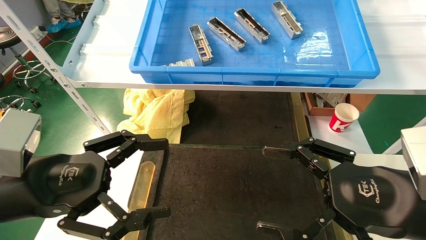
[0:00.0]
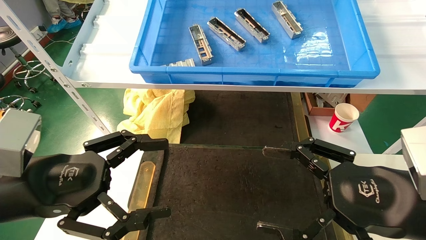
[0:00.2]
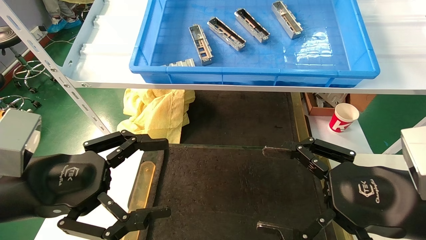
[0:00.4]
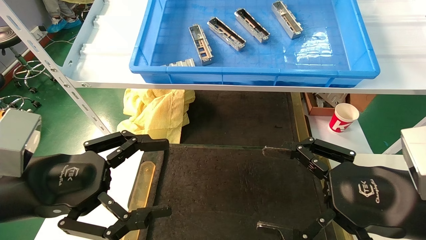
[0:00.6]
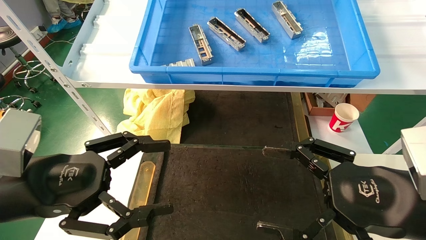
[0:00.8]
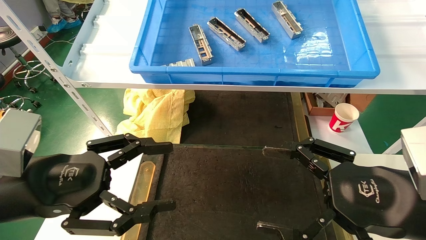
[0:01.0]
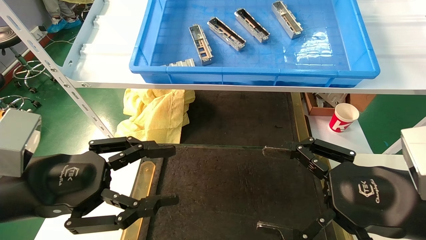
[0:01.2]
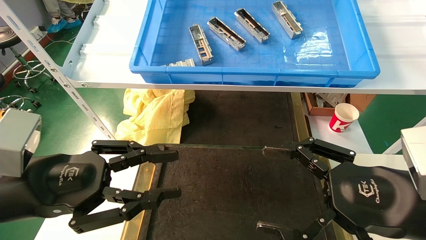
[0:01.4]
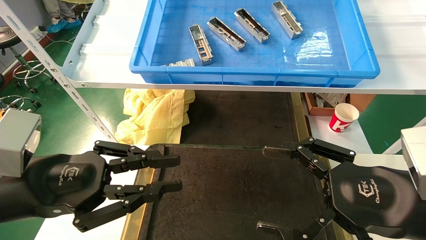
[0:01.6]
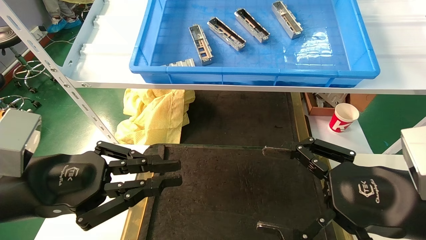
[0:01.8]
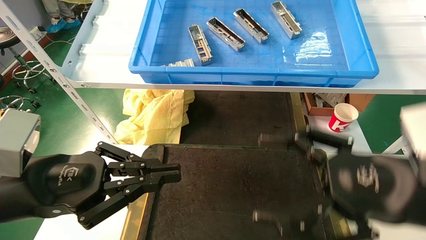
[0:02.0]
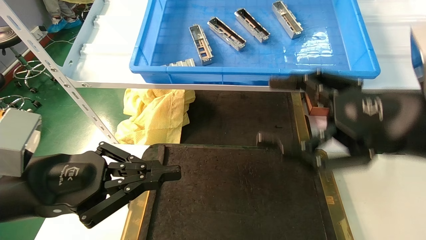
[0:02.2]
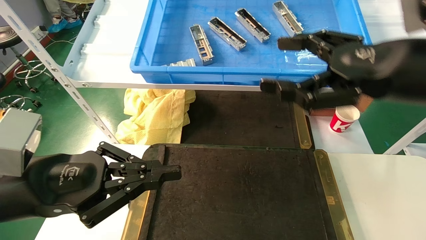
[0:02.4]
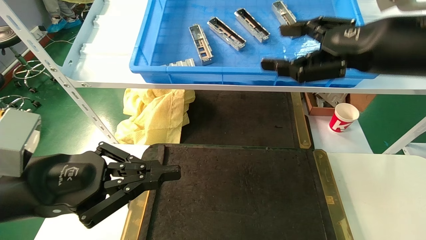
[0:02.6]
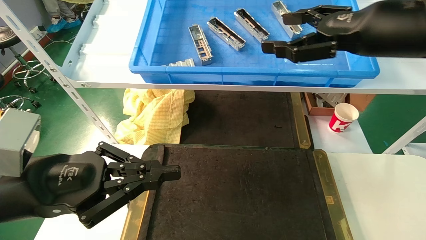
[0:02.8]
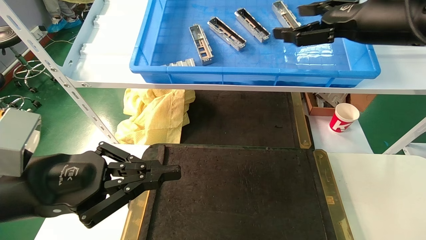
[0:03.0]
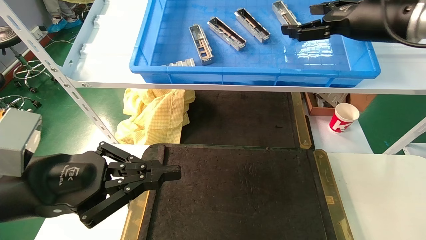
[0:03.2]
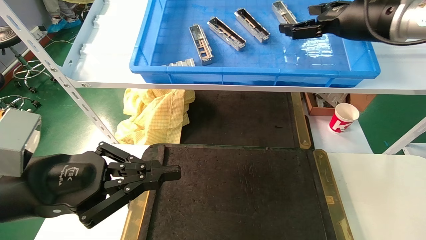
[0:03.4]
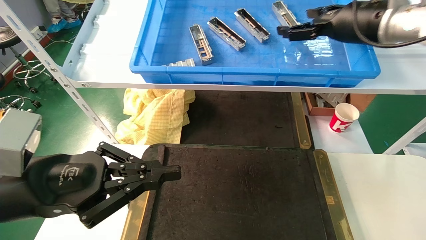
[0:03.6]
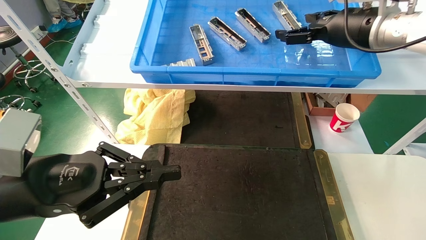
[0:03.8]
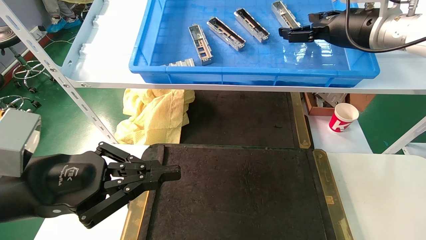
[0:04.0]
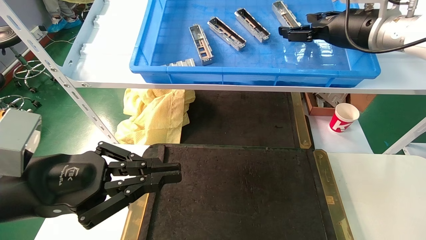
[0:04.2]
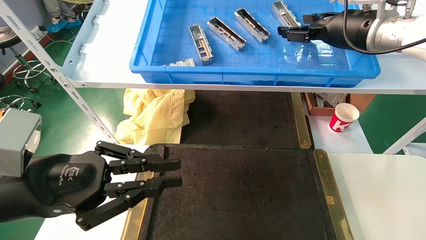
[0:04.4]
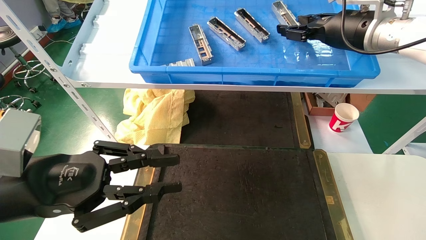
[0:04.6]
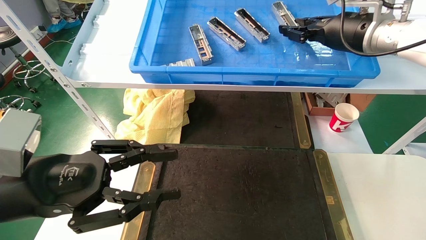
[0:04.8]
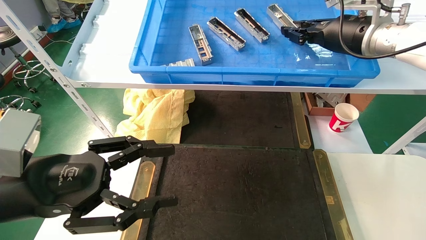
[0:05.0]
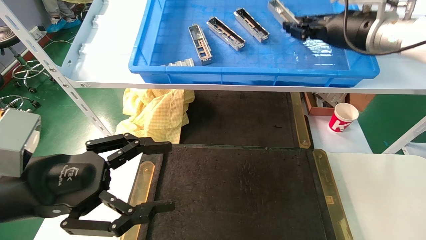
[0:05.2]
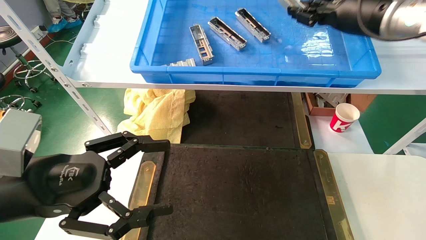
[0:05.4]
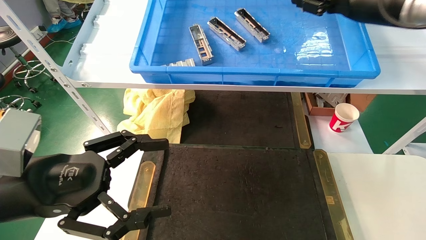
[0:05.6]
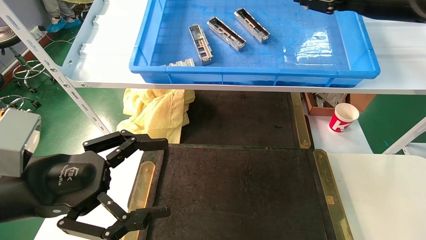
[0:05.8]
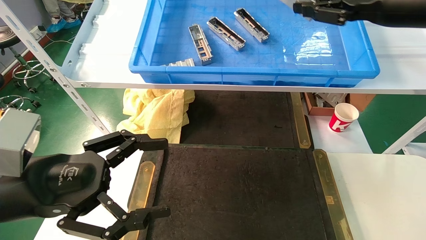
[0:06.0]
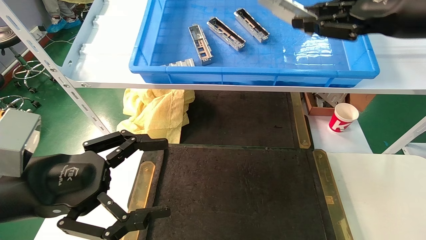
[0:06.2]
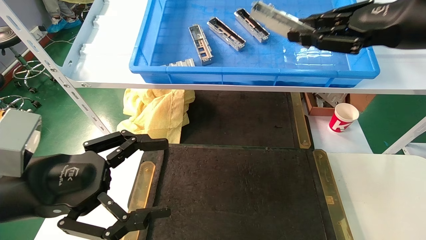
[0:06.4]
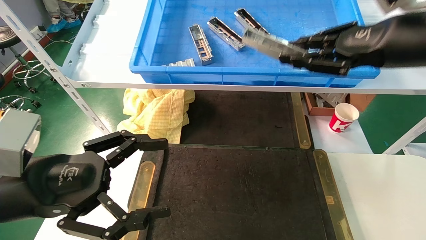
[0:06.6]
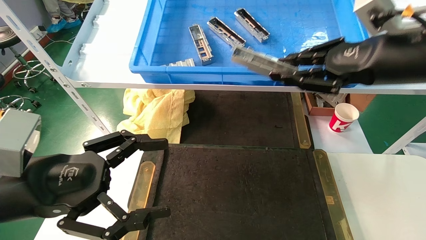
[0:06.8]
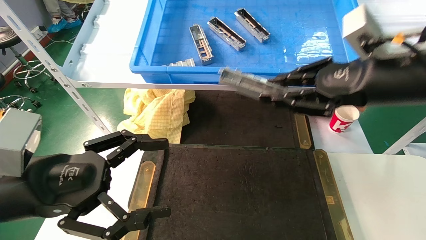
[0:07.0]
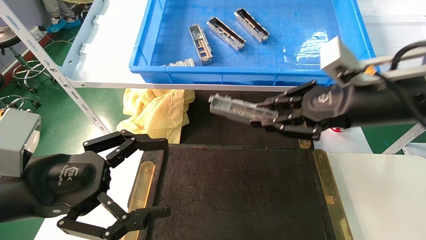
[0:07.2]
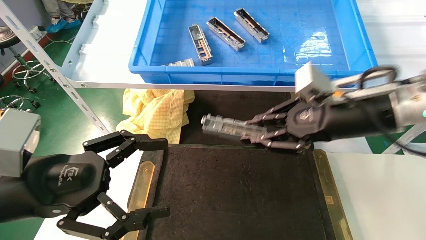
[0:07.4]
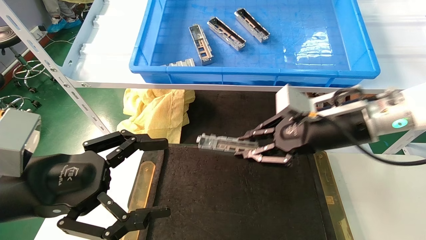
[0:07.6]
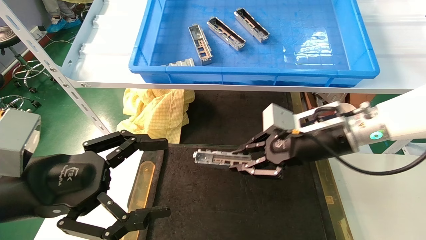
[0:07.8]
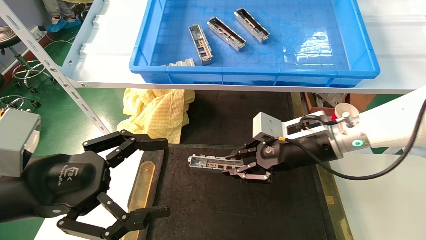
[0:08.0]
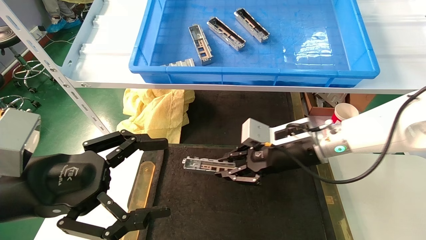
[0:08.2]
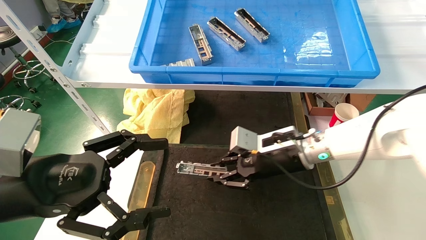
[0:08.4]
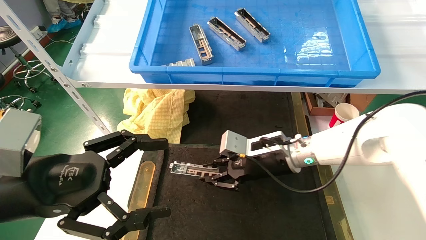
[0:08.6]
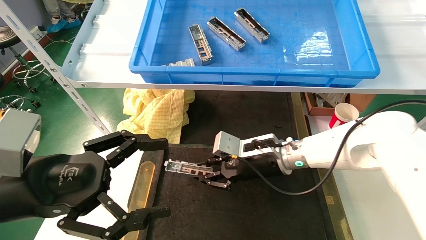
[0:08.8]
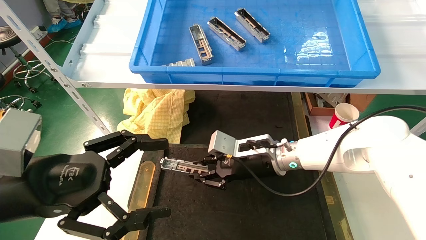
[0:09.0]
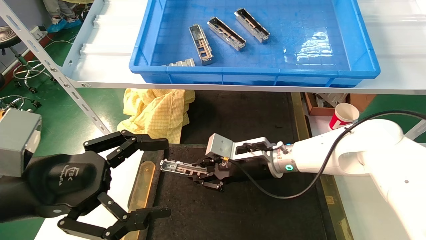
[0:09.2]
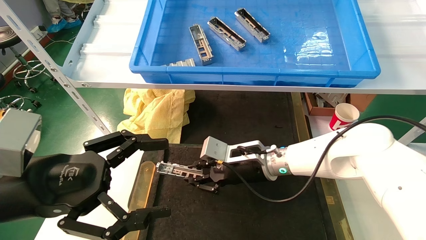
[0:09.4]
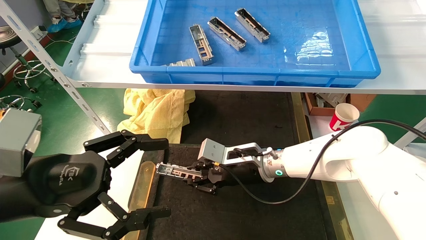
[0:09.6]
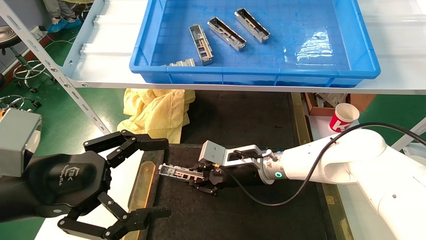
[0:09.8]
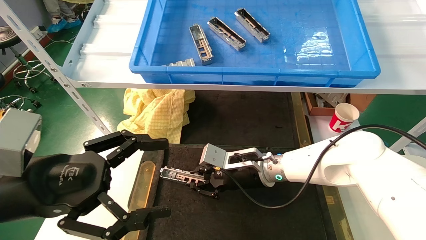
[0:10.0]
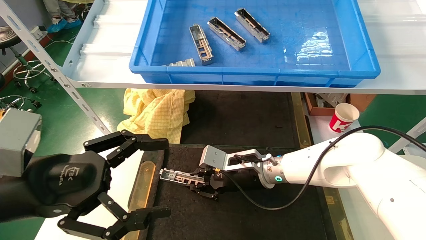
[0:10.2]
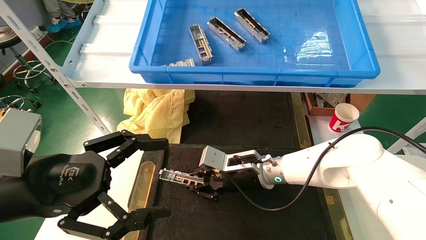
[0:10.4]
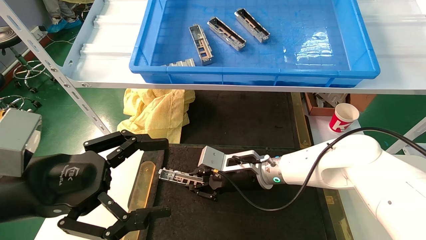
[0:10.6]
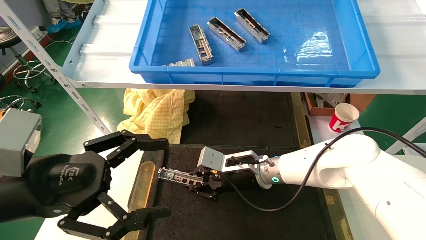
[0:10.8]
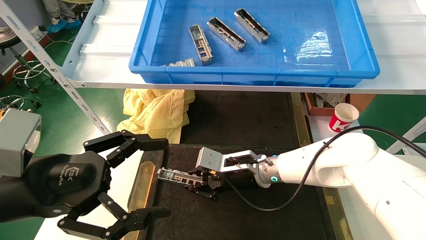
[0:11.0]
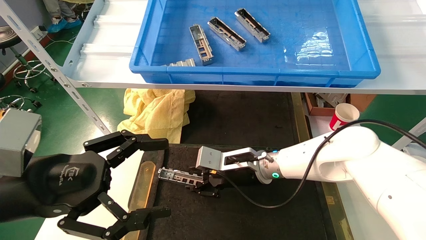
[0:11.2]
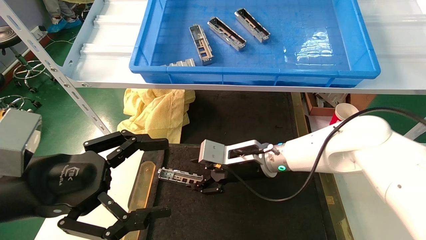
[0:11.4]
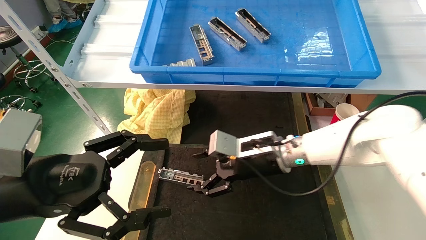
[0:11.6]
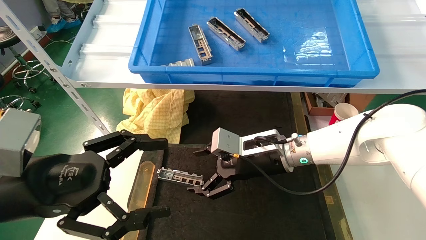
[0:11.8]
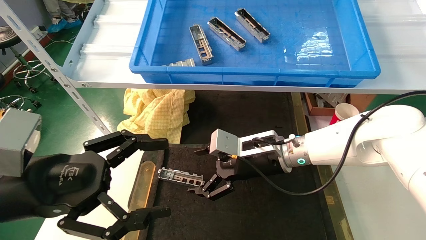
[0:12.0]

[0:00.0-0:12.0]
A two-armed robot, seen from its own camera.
Task of the whole recording: grasp the part and place them on the black container.
Step, 0:02.2 to 0:05.0: Pick up and lift the front USB bracket from the feeding area.
Step, 0:05.2 to 0:10.8: Place the front USB bracket into the box.
0:00.0 to 0:01.6: The left gripper closes.
0:01.6 to 0:03.0: The left gripper closes its fingers. The right gripper goes about 25 cm upward and forward.
0:03.0 to 0:04.4: The right gripper travels forward by approximately 10 cm.
0:04.4 to 0:06.0: The right gripper is displaced backward by some 10 cm, and closes up. The left gripper opens up.
0:06.0 to 0:07.6: The right gripper heads downward and to the left, covering some 20 cm.
0:07.6 to 0:09.0: The right gripper shifts roughly 20 cm to the left, downward and forward.
0:09.0 to 0:10.4: The grippers move only a little.
0:10.4 to 0:12.0: The right gripper shifts approximately 5 cm upward, and opens.

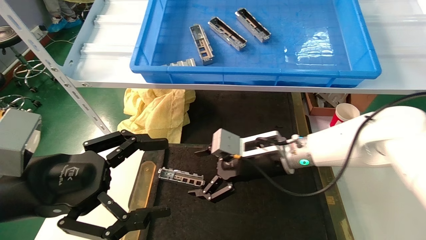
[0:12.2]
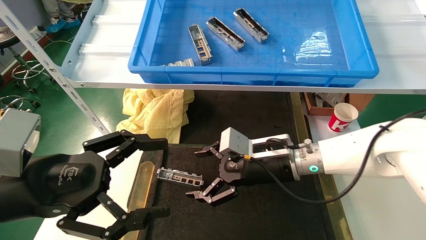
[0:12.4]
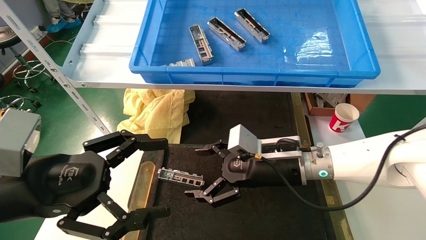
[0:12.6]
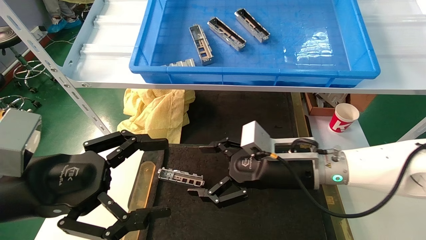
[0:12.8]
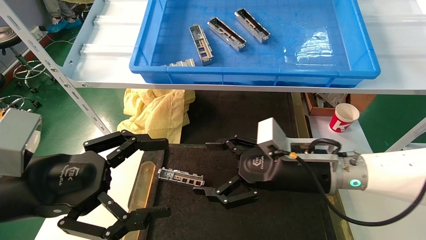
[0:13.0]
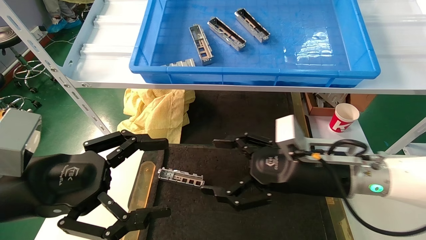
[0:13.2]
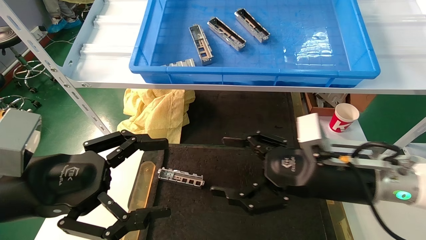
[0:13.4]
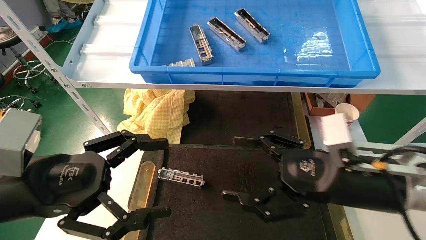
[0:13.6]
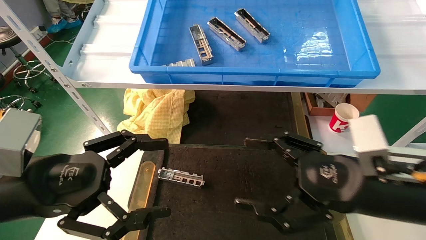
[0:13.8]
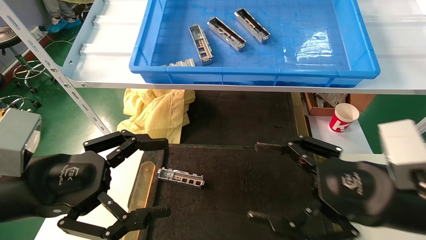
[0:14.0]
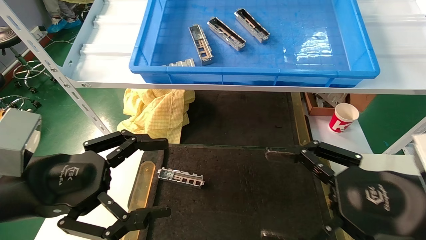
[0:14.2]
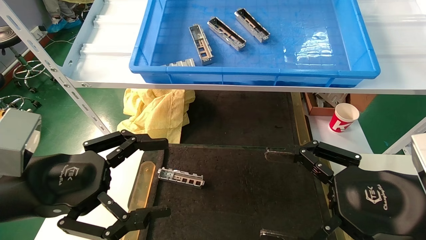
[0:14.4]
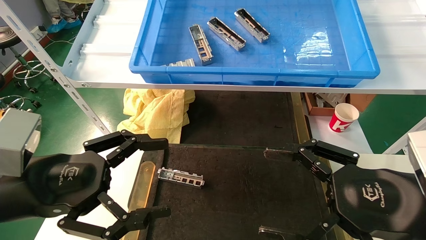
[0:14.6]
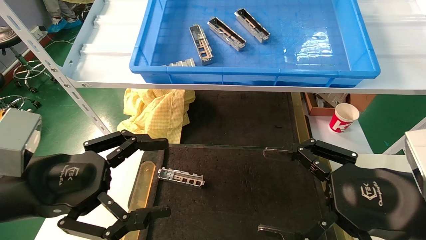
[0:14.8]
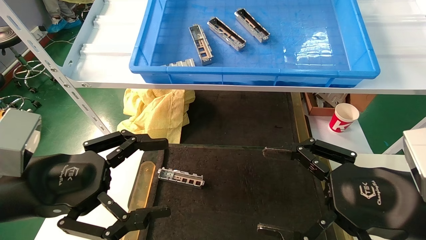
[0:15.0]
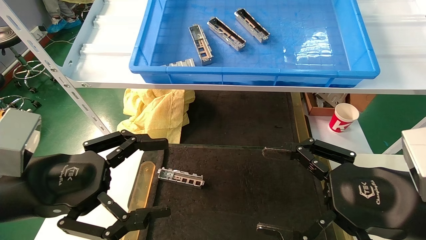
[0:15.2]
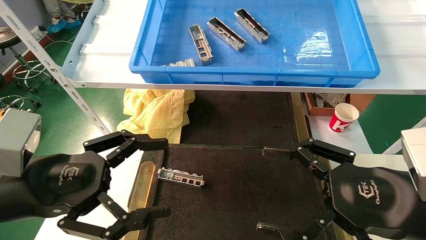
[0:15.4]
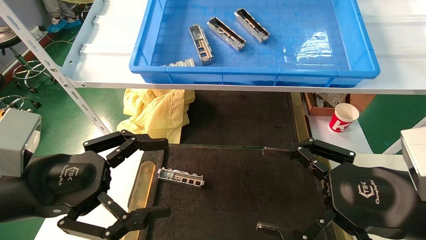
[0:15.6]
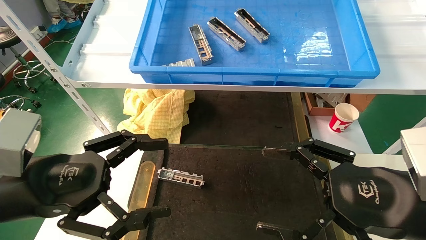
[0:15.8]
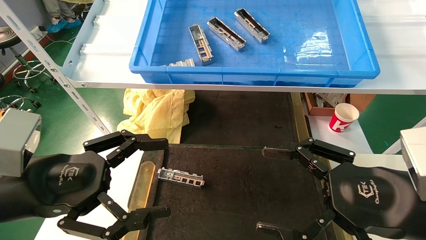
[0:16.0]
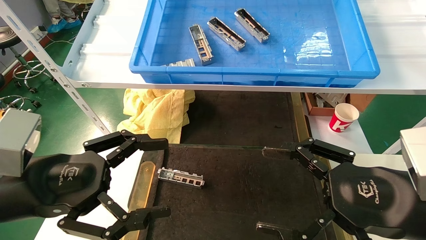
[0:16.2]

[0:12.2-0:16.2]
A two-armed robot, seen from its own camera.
Task of the whole recording: grasp the part and place them on the black container.
0:12.2 to 0:13.6: The right gripper is displaced backward and to the right by some 15 cm.
0:13.6 to 0:14.8: The right gripper heads backward, covering about 5 cm.
0:14.8 to 0:16.2: Both grippers stay about where they are.
